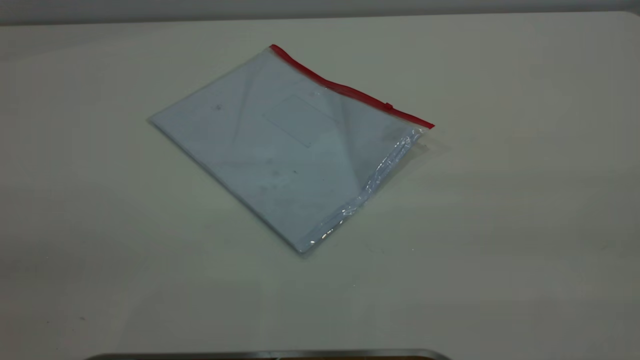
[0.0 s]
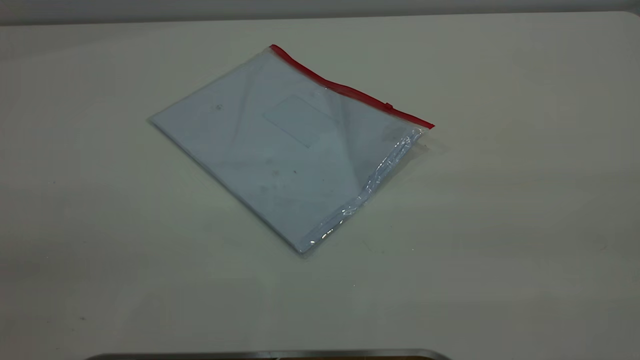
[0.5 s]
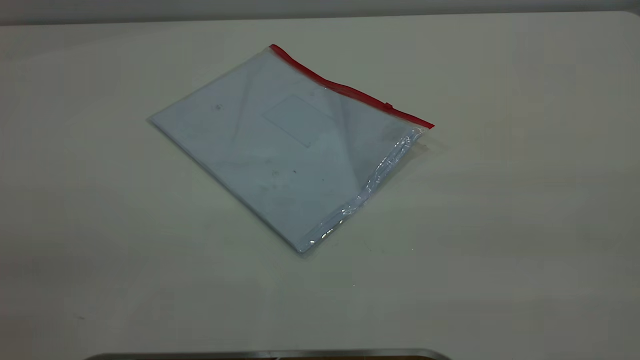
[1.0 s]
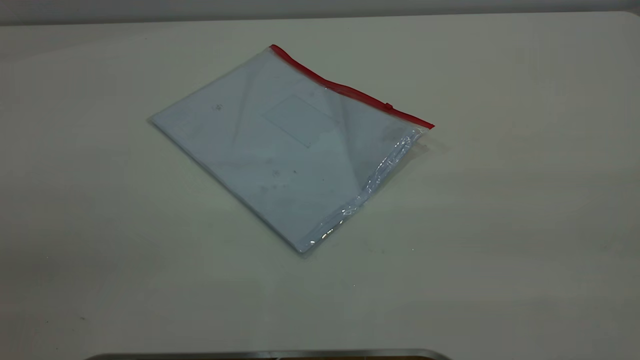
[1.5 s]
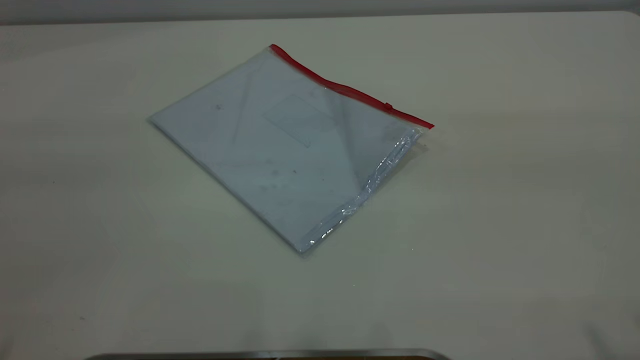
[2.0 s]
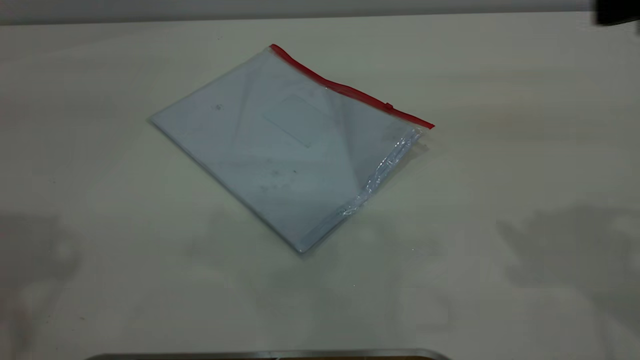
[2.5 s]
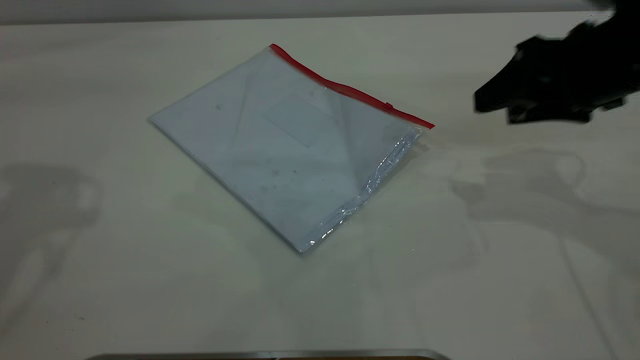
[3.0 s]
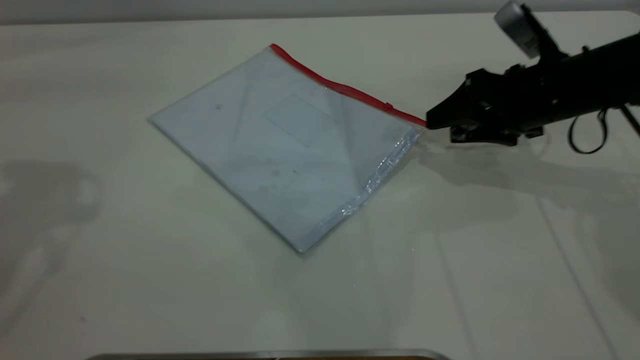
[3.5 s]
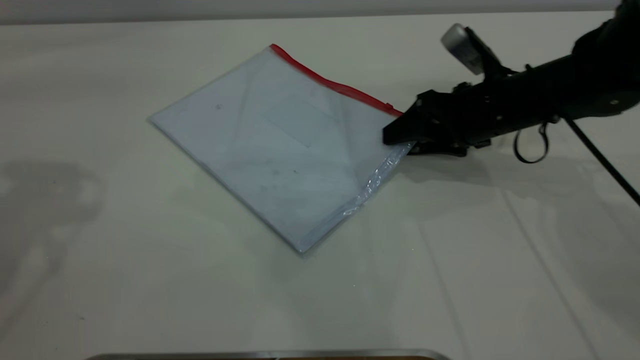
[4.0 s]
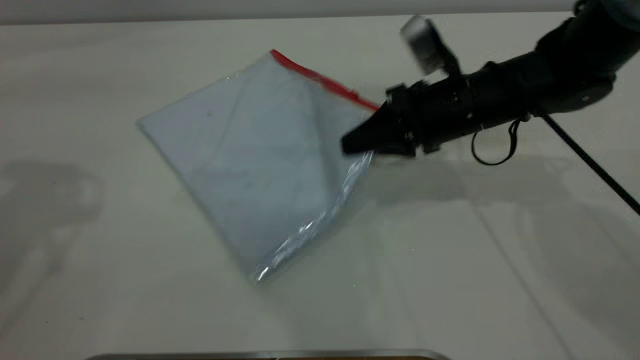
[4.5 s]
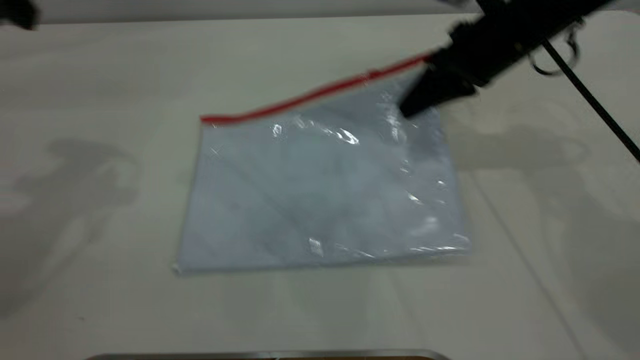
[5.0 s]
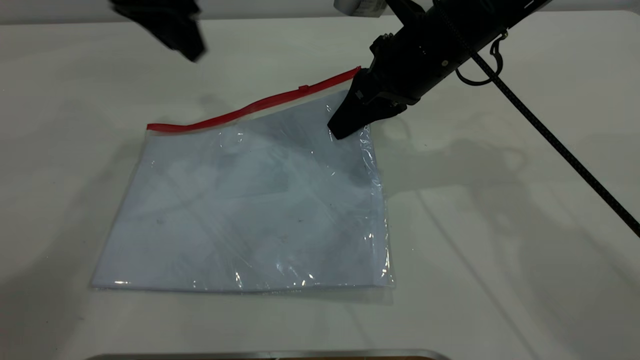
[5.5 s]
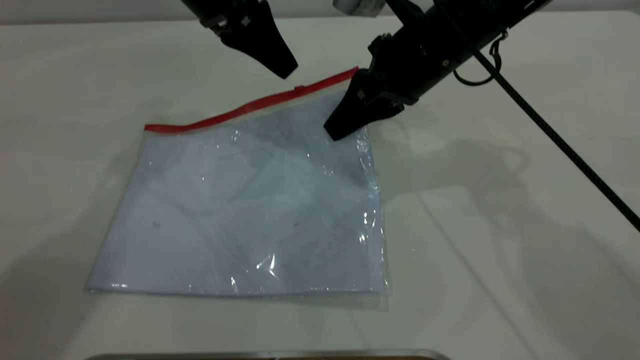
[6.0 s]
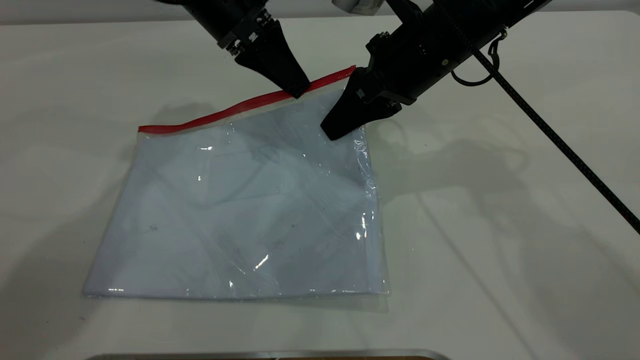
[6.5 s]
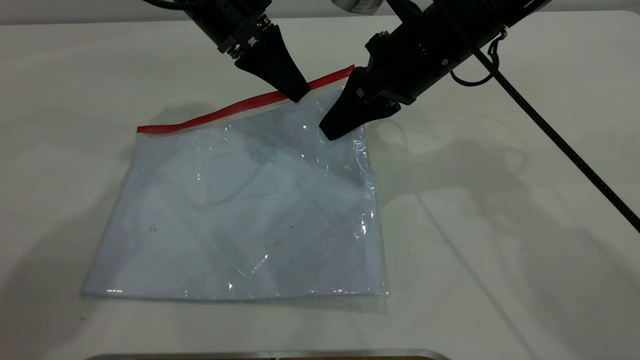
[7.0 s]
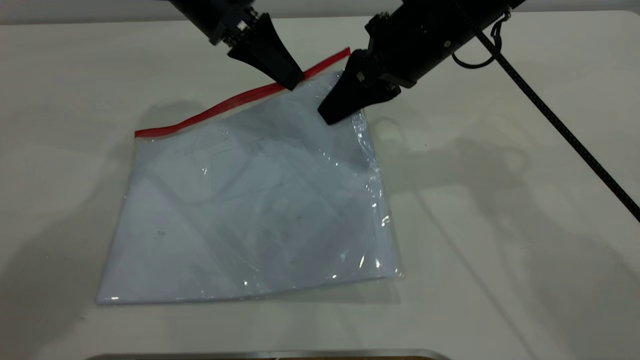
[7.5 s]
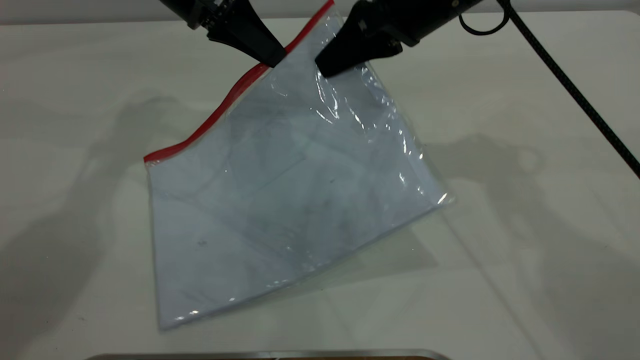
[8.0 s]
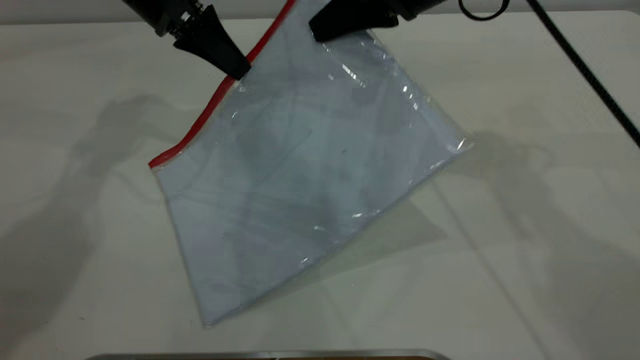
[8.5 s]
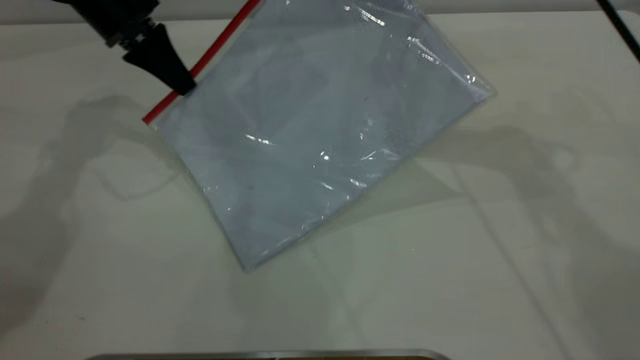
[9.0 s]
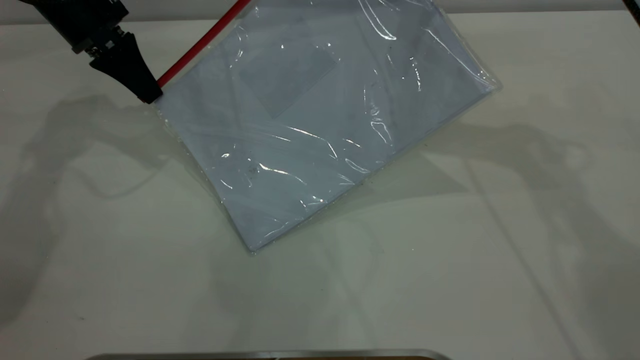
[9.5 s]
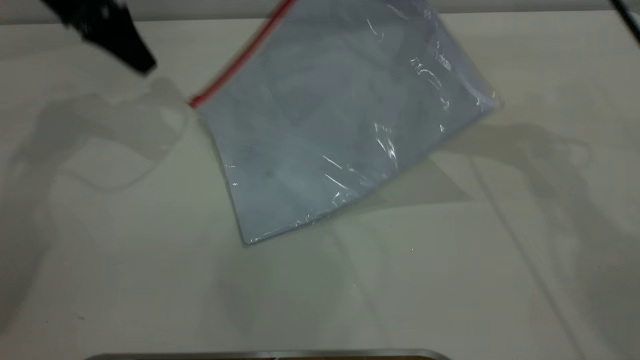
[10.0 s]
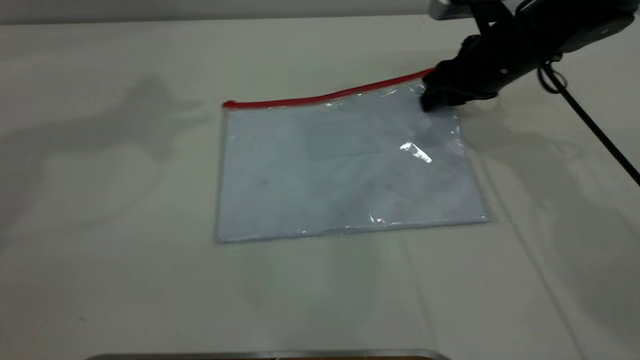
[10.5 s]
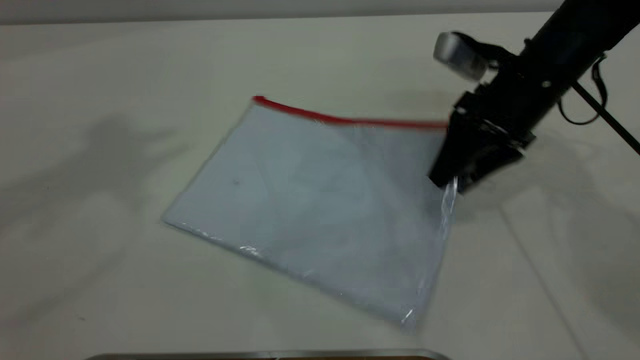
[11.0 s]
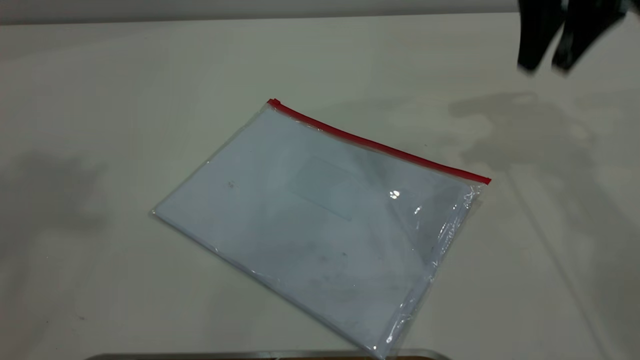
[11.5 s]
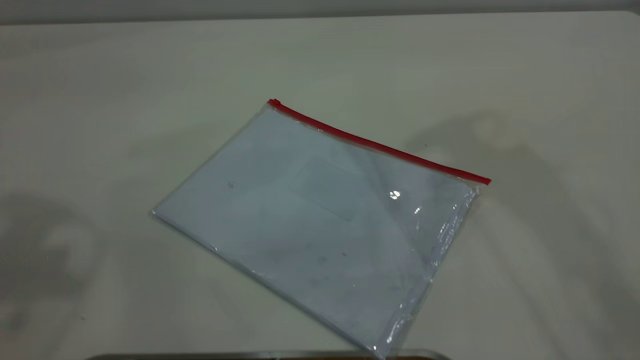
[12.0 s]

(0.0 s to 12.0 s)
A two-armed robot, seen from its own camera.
Step, 0.0 s - 5.0 s: Pick up the transparent plastic bag with the right gripper.
Step, 5.5 s - 10.0 s: Pulling up the zipper on the transparent plastic bag with the left gripper to close it.
Step, 10.5 s - 11.5 s: Place the transparent plastic bag.
2.0 s - 4.0 s: The right gripper goes some 40 cm downward and forward; the left gripper heads forward, covering about 20 cm.
4.0 s - 6.0 s: The right gripper heads upward and to the left, covering approximately 15 cm, and closes. The left gripper shifts roughly 30 cm to the right, downward and forward.
6.0 s - 8.0 s: The left gripper closes its fingers. Meanwhile the right gripper shifts roughly 5 cm upward.
8.0 s - 10.0 s: The left gripper moves to the left, some 10 cm, and opens up. The right gripper is displaced to the right by about 5 cm.
10.0 s - 12.0 s: The left gripper shifts about 35 cm backward and upward. The right gripper heads upward and backward, covering about 25 cm, and opens its fingers.
